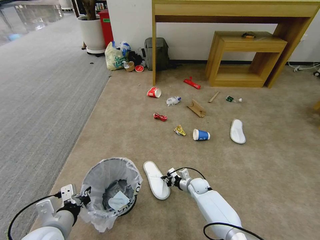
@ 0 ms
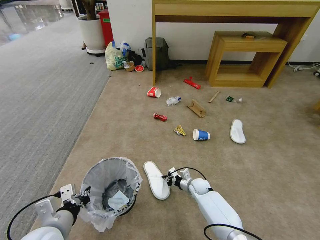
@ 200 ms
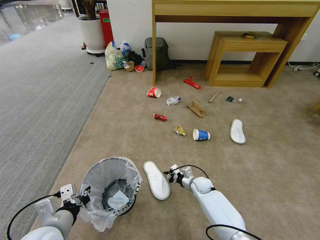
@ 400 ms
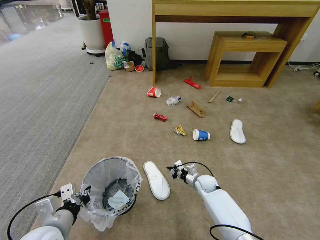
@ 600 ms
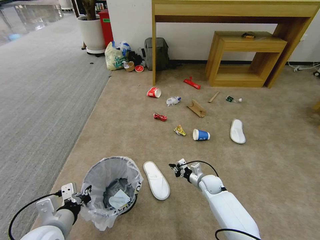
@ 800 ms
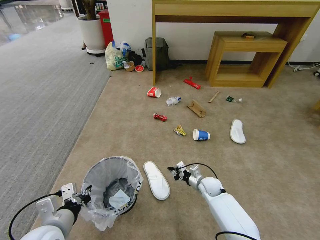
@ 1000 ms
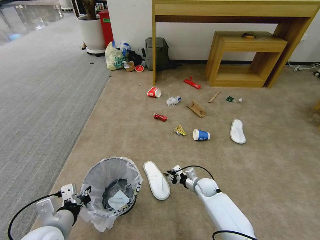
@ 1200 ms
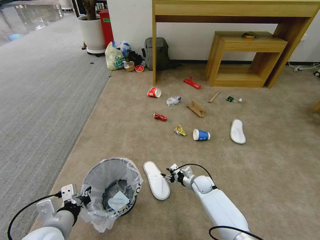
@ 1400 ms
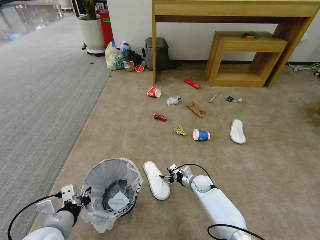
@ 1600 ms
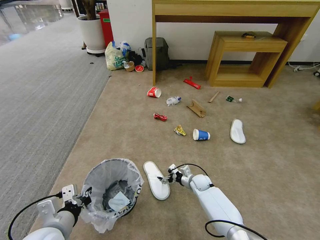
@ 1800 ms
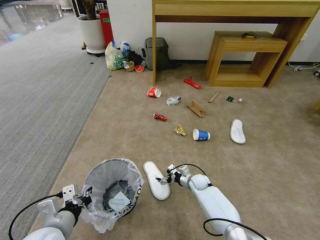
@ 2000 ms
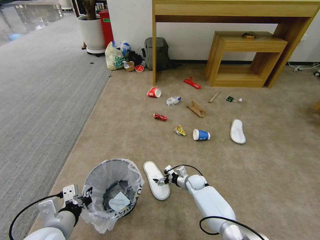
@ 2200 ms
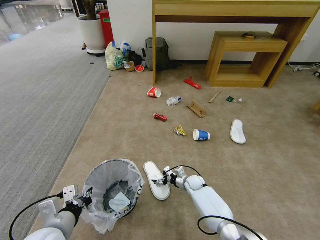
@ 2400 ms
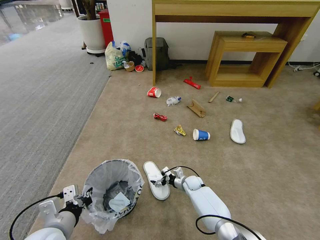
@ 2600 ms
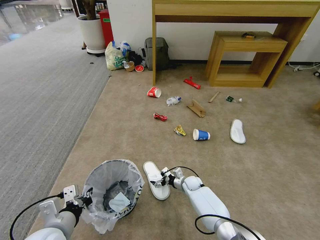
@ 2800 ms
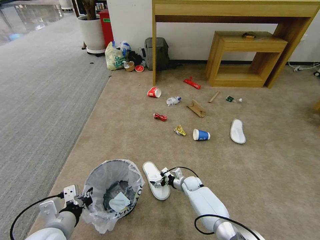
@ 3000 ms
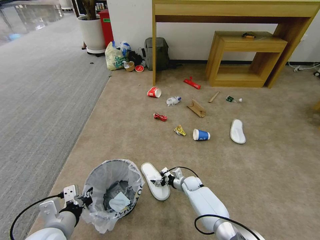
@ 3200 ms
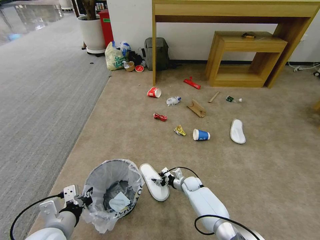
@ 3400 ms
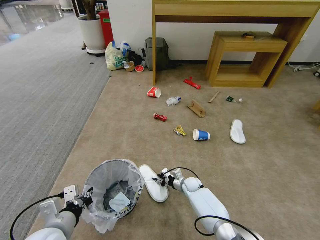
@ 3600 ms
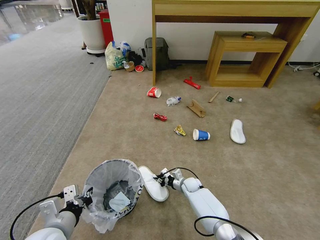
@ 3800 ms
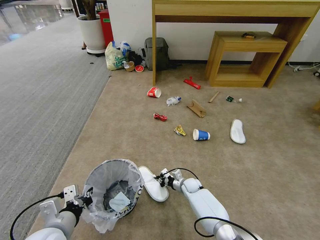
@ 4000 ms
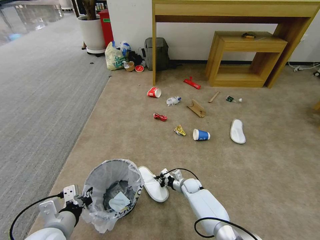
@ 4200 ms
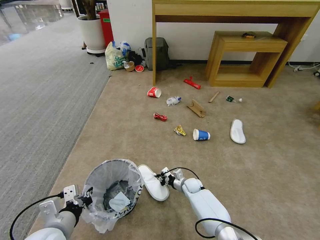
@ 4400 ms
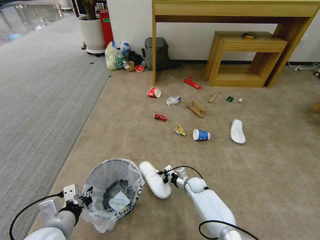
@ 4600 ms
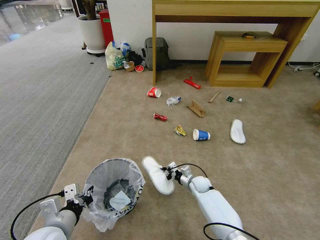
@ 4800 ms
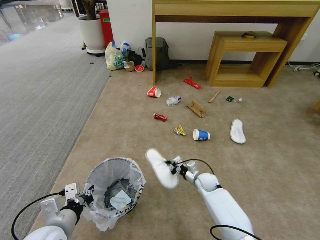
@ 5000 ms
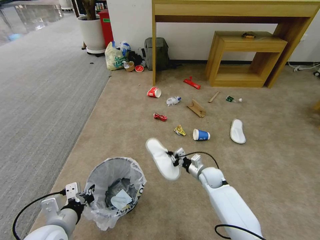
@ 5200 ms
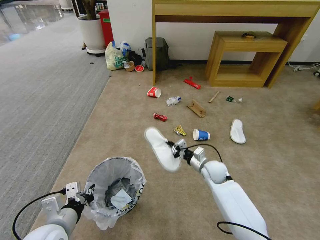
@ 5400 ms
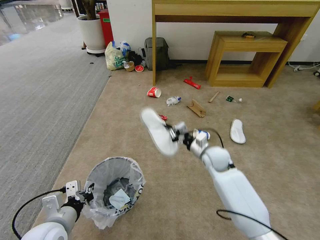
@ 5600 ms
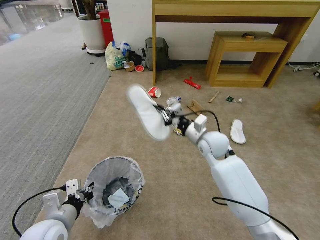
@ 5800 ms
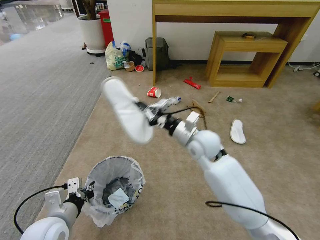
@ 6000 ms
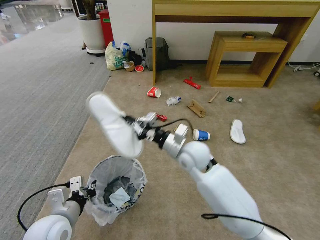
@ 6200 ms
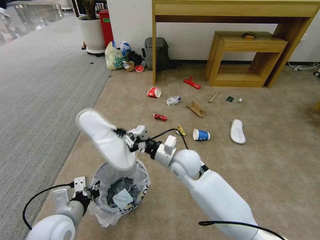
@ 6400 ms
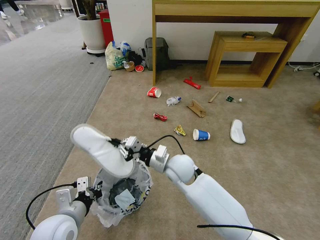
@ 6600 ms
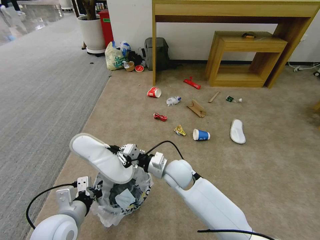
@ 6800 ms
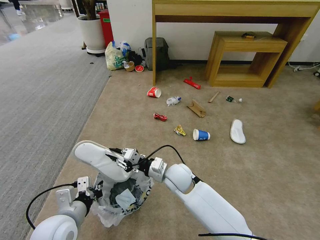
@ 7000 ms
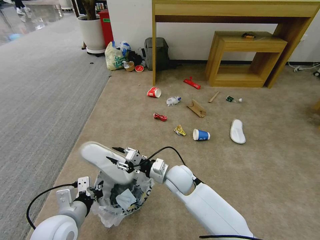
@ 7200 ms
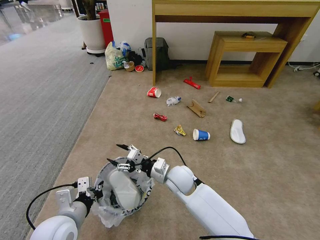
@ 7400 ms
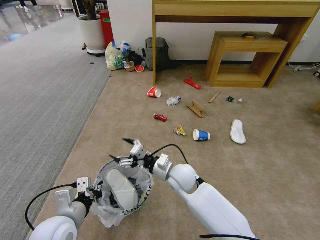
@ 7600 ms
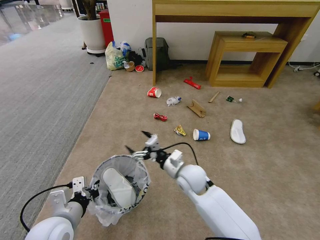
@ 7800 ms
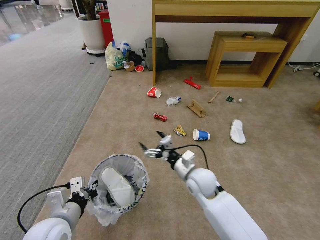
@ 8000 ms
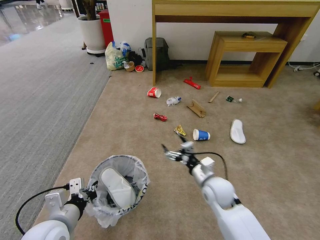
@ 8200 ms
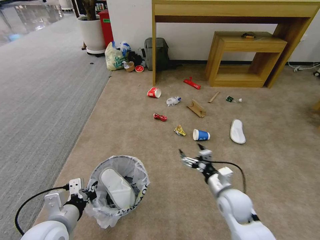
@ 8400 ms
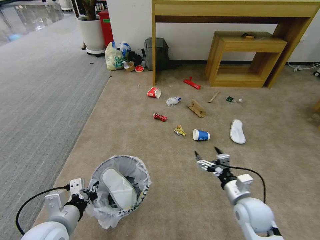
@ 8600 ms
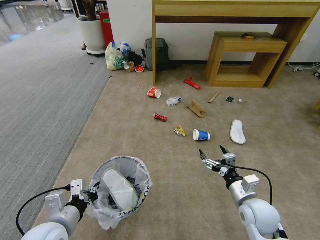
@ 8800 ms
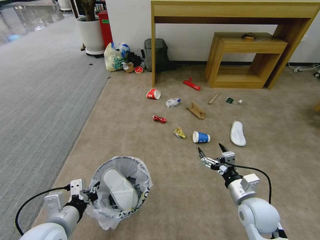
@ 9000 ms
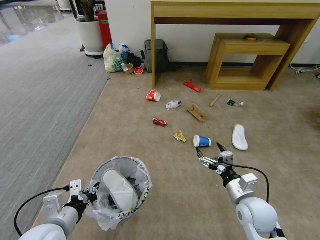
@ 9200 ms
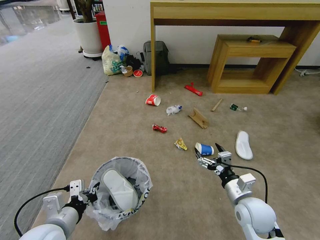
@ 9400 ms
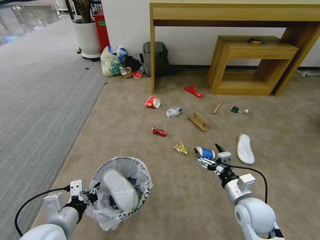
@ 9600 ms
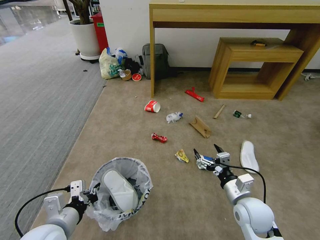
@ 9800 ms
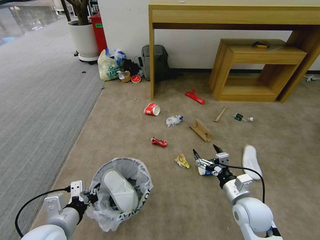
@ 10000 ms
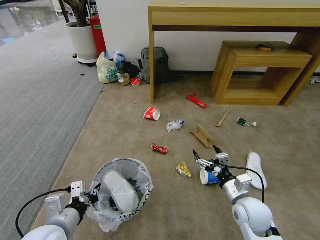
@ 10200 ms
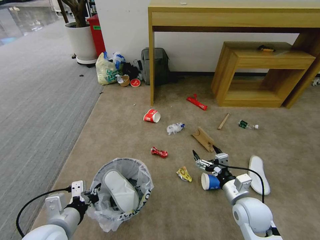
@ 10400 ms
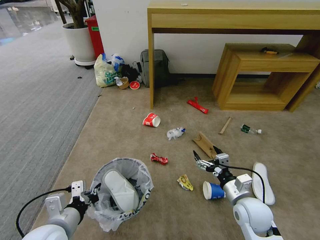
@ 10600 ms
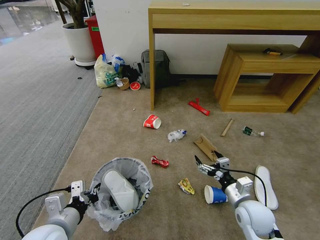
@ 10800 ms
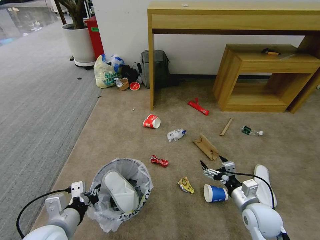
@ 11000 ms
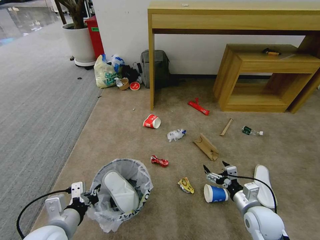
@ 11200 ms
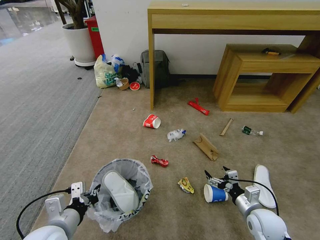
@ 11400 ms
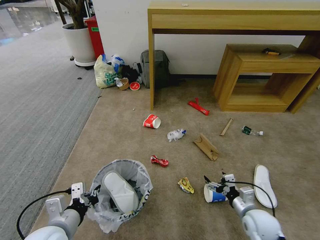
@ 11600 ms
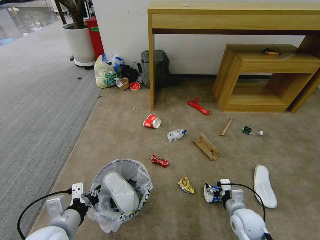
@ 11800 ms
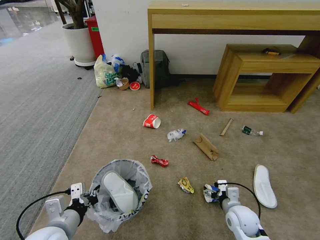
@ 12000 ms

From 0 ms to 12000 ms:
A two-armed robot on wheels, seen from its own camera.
Task of the whole recording: Pick up the trash bin and place the garbage on the floor into it.
From 0 ms to 1600 ms: The right gripper opens its fingers.
From 1600 ms to 3000 ms: The right gripper ends up approximately 5 cm from where it was.
From 3000 ms to 4400 ms: The right gripper closes its fingers.
From 4400 ms to 6000 ms: The right gripper heads upward, covering some 35 cm.
From 6000 ms to 7600 ms: The right gripper moves downward, to the left and backward, about 15 cm, and opens up.
From 7600 ms to 9000 ms: The right gripper moves to the right and backward, some 25 cm.
From 10400 ms to 12000 ms: The right gripper shifts roughly 10 cm downward.

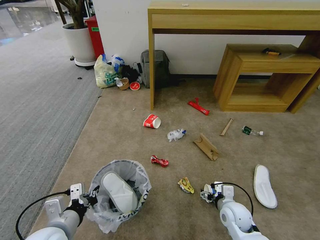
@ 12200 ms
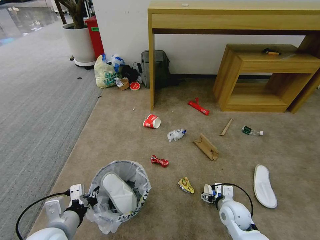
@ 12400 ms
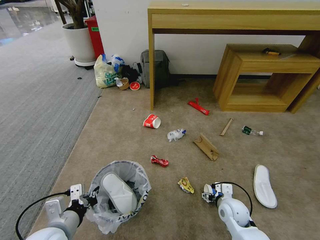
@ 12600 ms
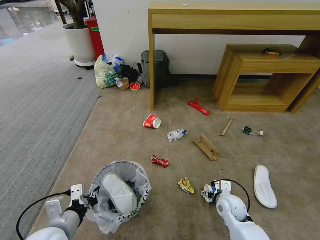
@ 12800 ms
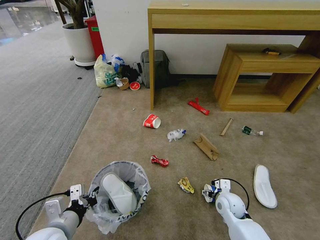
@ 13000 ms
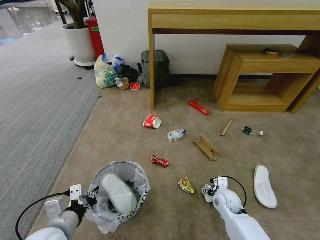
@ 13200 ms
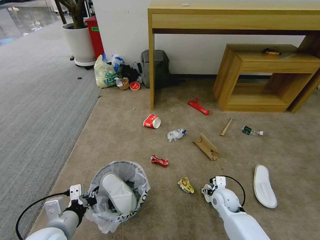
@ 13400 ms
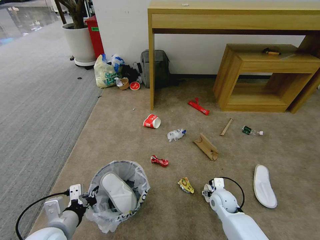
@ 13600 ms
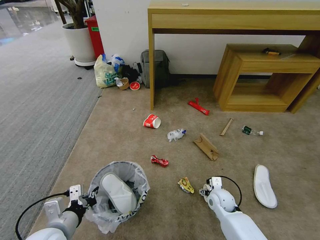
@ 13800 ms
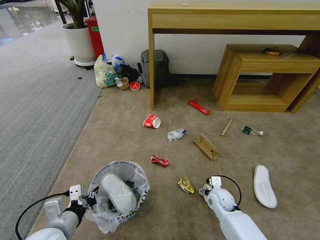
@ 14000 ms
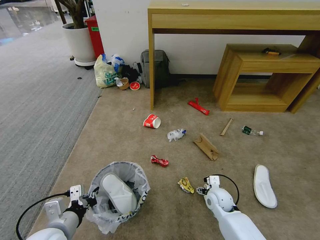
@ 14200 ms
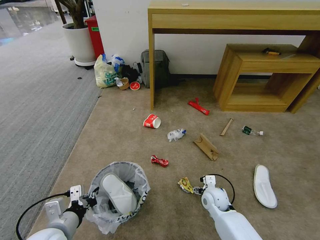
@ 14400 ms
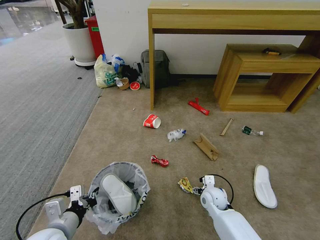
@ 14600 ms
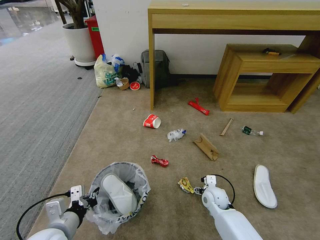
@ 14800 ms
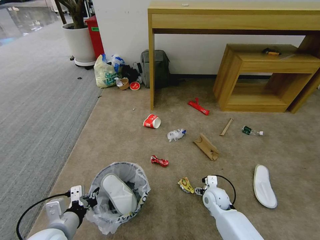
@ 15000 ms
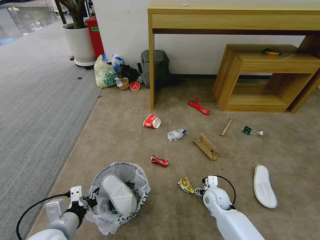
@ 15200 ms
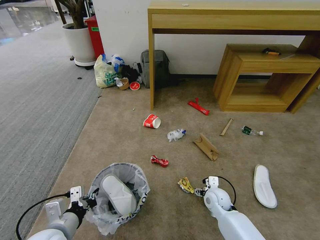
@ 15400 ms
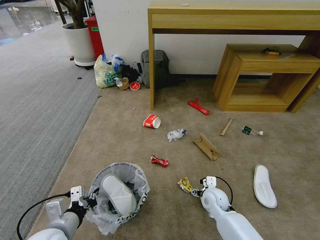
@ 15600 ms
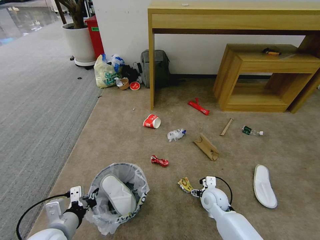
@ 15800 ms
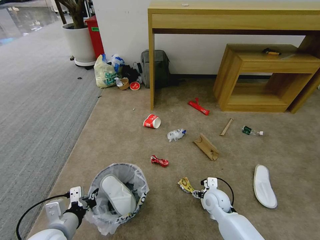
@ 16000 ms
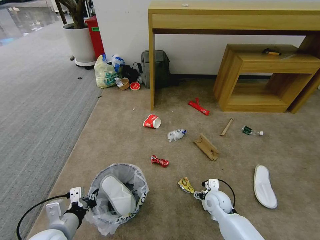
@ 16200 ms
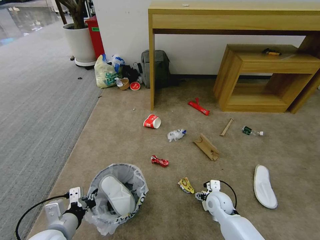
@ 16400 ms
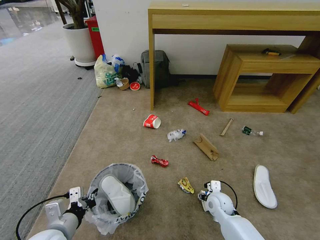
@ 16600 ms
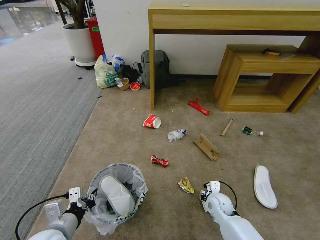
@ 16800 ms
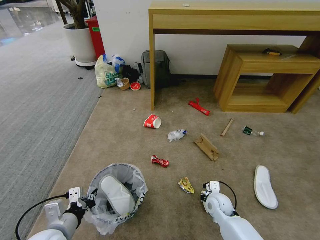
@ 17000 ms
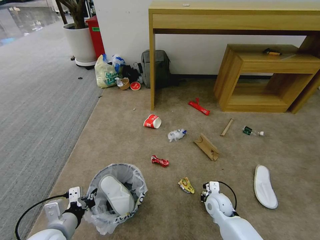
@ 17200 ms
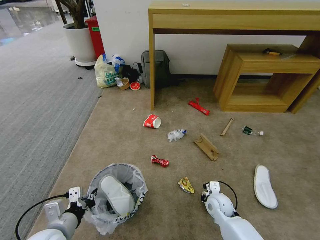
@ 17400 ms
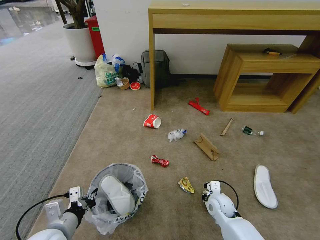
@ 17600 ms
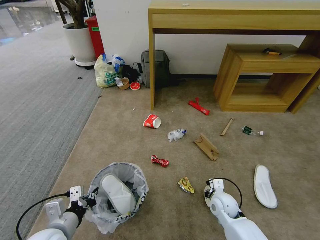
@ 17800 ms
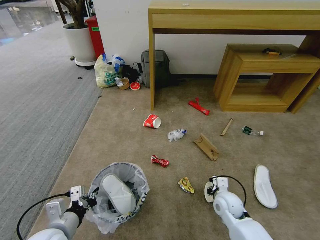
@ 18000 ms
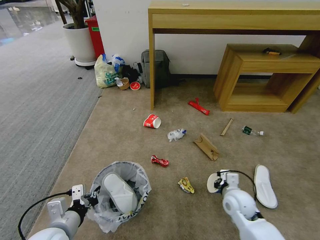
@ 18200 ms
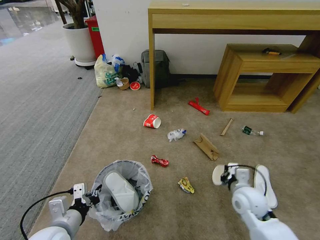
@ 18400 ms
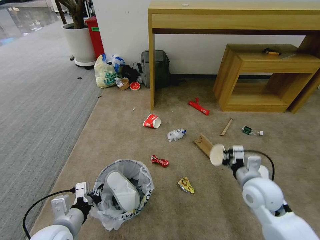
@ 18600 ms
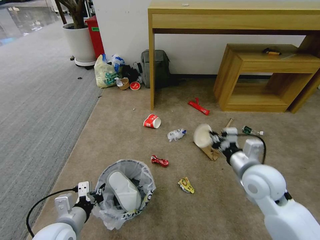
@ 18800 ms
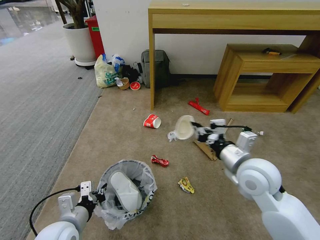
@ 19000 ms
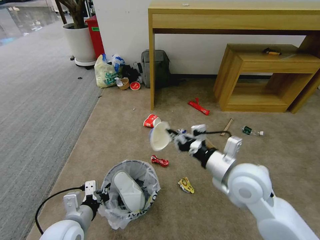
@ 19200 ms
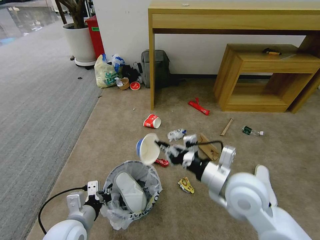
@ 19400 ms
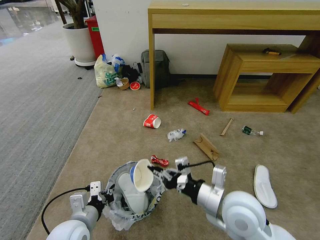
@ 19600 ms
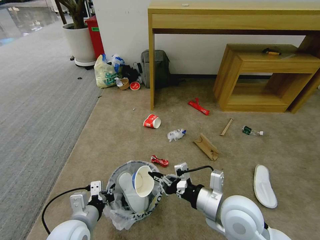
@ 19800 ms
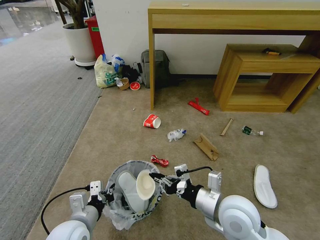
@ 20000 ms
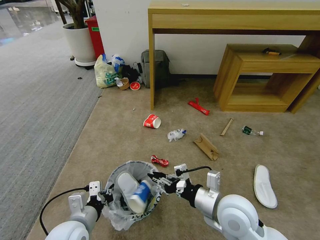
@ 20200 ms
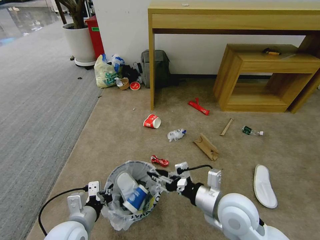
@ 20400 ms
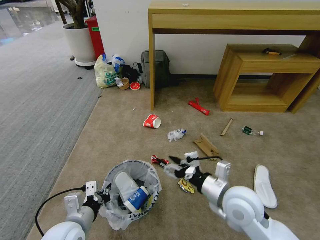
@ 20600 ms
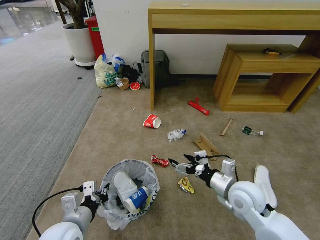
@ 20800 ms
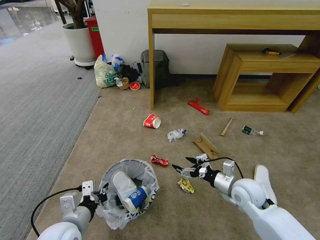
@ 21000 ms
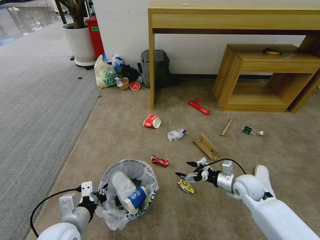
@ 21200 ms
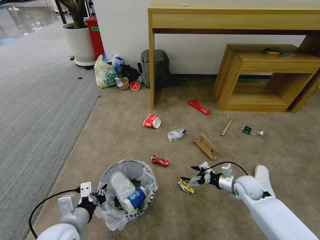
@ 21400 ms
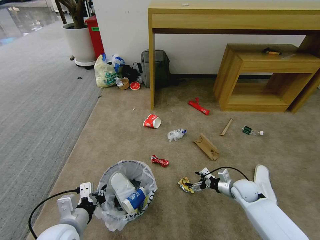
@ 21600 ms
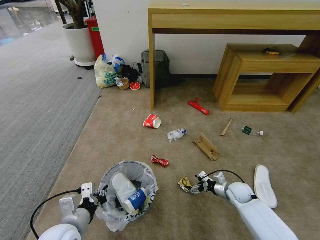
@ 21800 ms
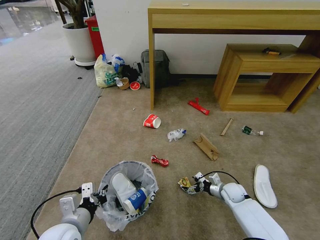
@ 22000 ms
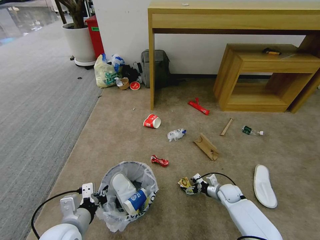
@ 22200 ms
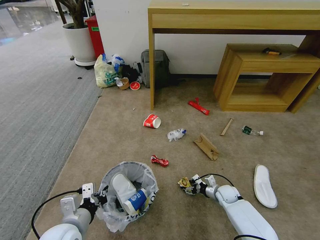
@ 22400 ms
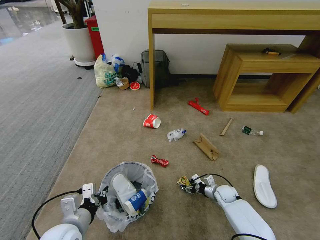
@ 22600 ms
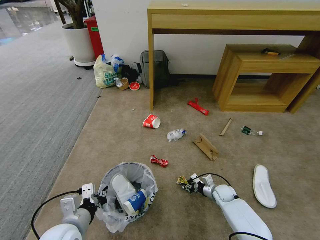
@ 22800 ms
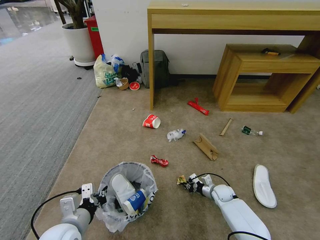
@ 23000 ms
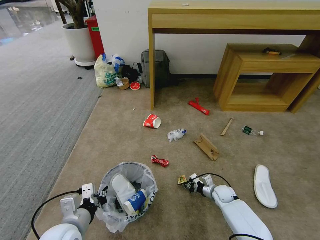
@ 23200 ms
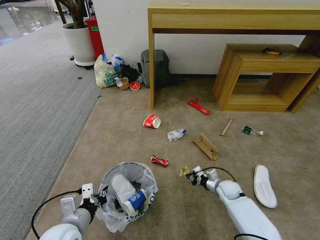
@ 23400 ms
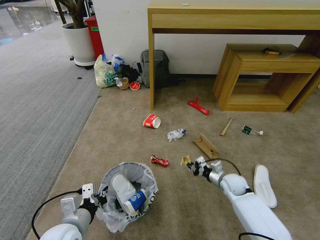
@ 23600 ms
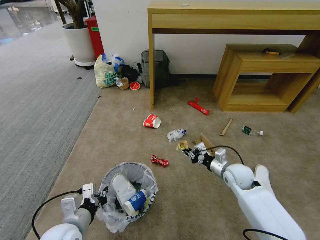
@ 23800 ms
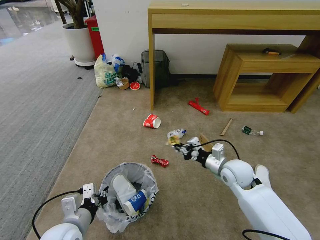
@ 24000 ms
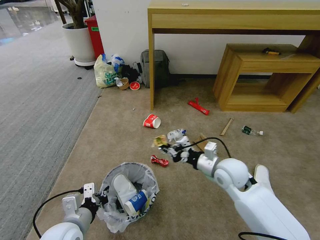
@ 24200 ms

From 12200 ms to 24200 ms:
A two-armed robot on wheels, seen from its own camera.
Task of the whole recording: Pick up the trash bin and place the garbage on the floor into it.
From 12200 ms to 13800 ms: The right gripper is displaced forward by about 5 cm.
From 13800 ms to 16600 ms: The grippers move only a little.
From 16600 ms to 18200 ms: The right gripper travels upward by some 10 cm, and closes.
From 18200 ms to 19800 ms: The left gripper changes place by approximately 5 cm. The right gripper travels upward, to the left and backward by approximately 20 cm.
From 19800 ms to 21200 ms: The right gripper moves to the right, downward and forward, approximately 25 cm, and opens.
From 21200 ms to 22600 ms: The right gripper is displaced downward by roughly 15 cm, and closes its fingers.
From 22600 ms to 24200 ms: The right gripper moves upward, some 30 cm, and closes up.
